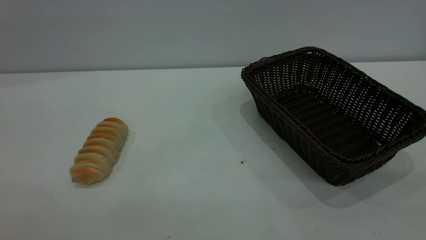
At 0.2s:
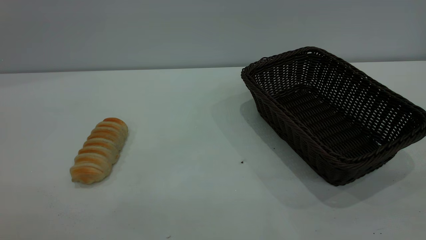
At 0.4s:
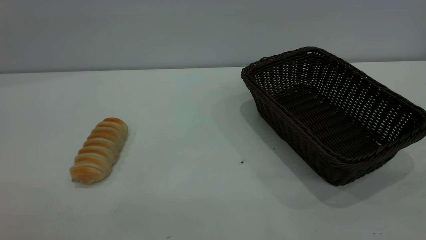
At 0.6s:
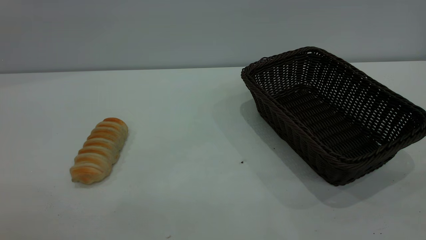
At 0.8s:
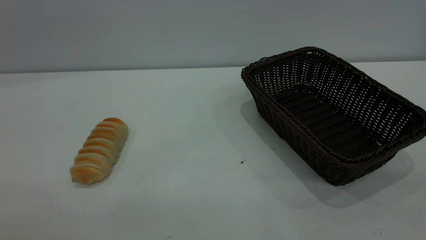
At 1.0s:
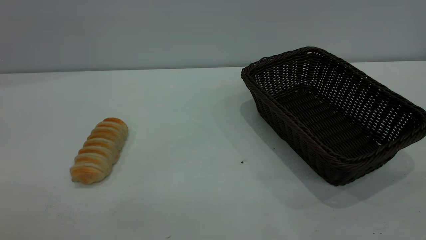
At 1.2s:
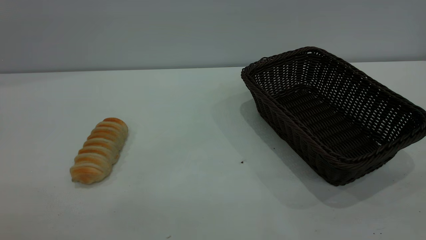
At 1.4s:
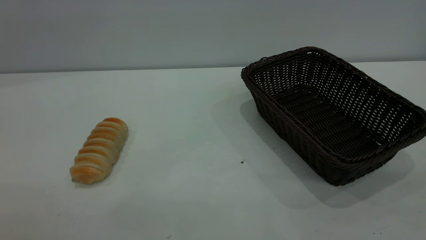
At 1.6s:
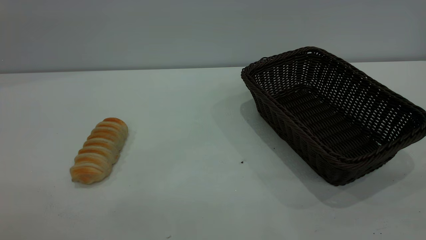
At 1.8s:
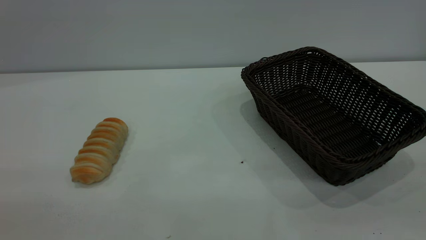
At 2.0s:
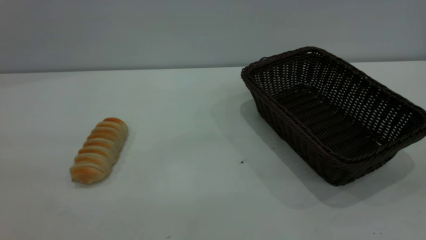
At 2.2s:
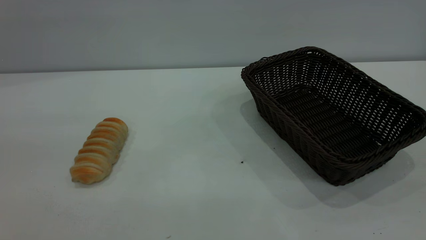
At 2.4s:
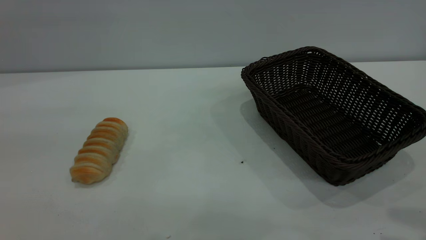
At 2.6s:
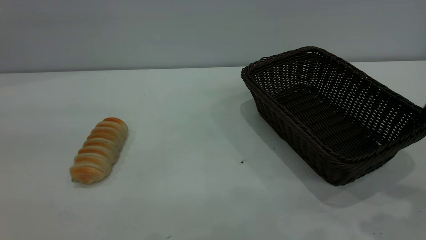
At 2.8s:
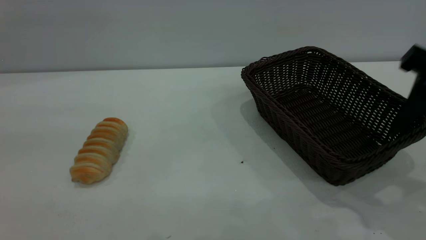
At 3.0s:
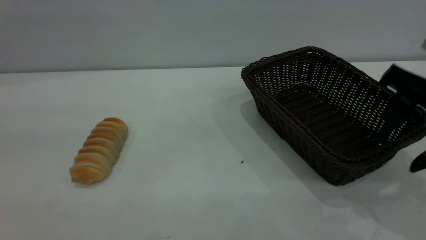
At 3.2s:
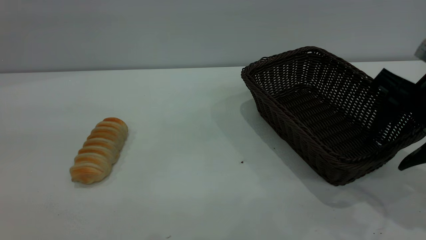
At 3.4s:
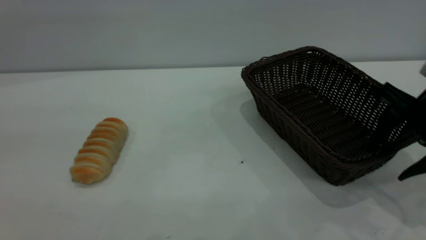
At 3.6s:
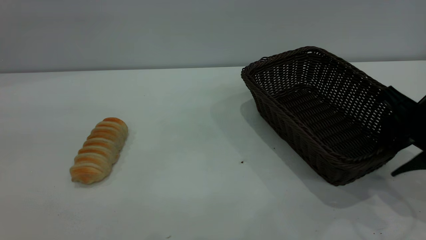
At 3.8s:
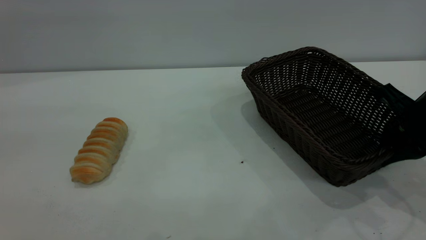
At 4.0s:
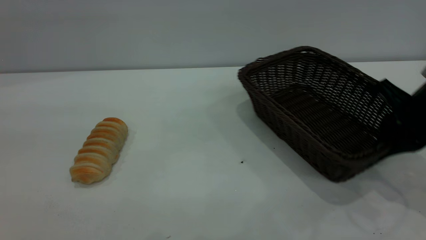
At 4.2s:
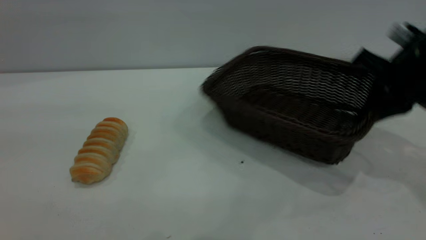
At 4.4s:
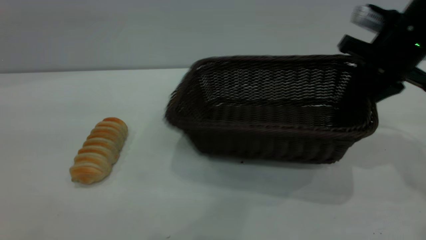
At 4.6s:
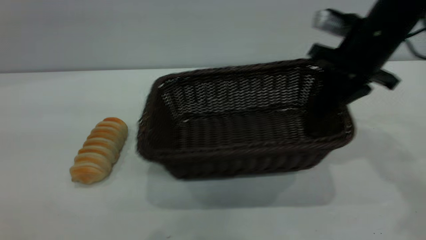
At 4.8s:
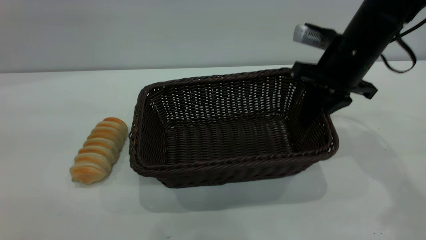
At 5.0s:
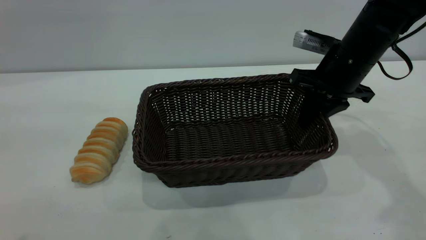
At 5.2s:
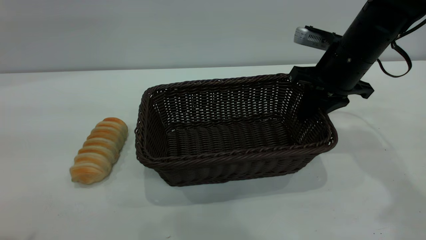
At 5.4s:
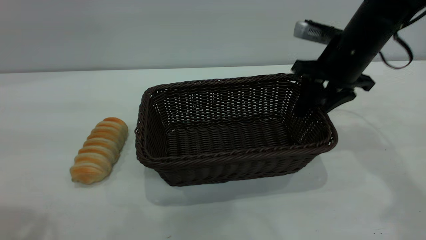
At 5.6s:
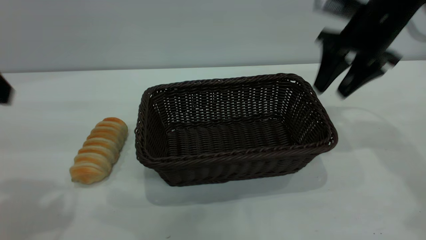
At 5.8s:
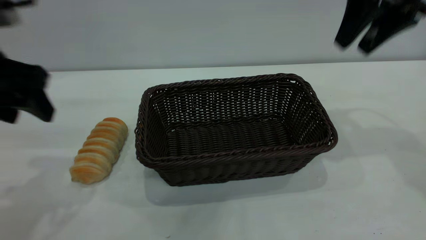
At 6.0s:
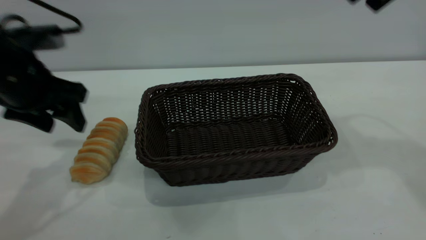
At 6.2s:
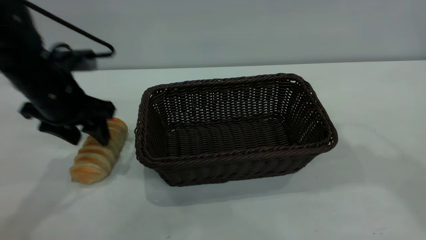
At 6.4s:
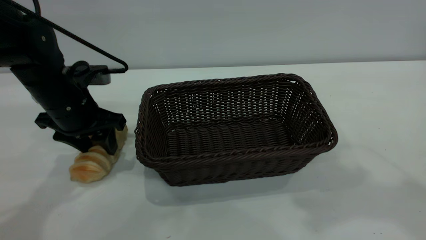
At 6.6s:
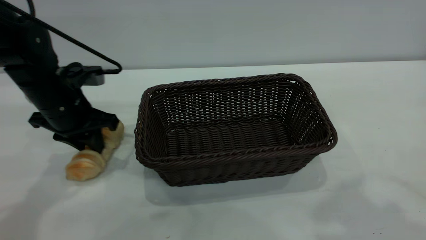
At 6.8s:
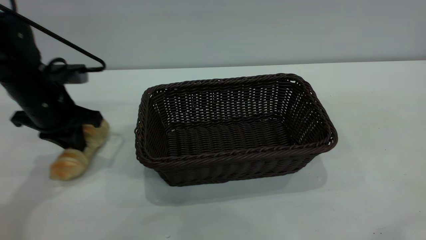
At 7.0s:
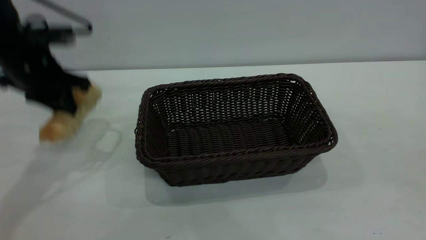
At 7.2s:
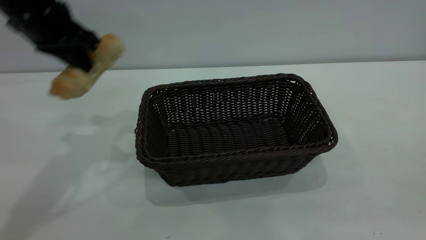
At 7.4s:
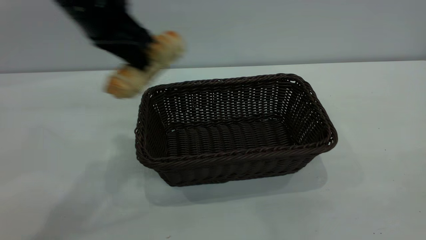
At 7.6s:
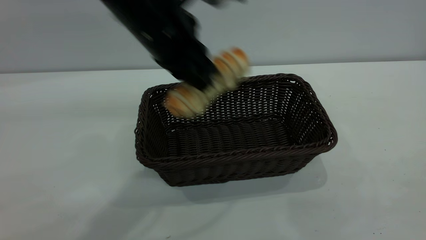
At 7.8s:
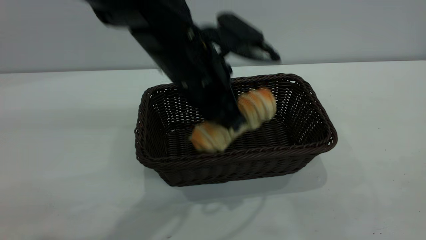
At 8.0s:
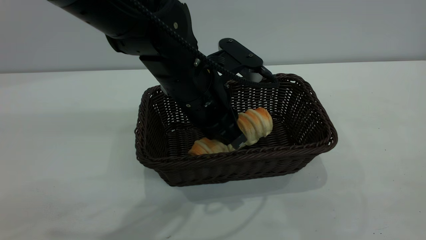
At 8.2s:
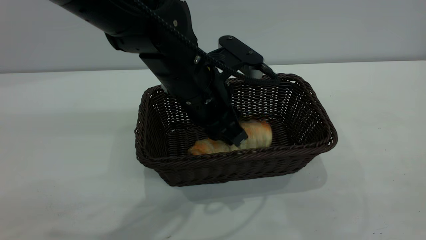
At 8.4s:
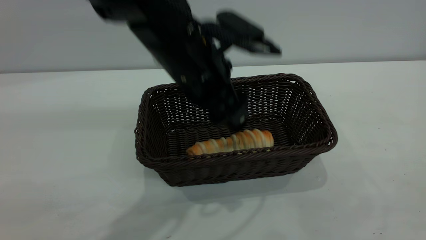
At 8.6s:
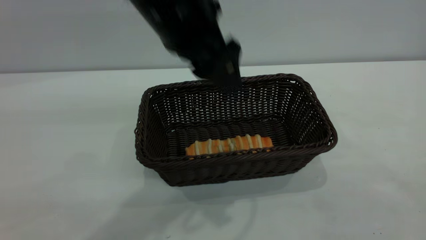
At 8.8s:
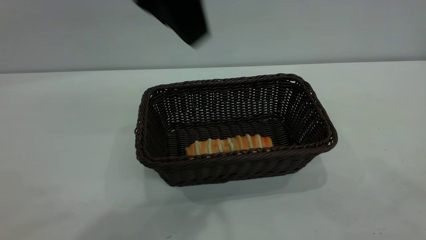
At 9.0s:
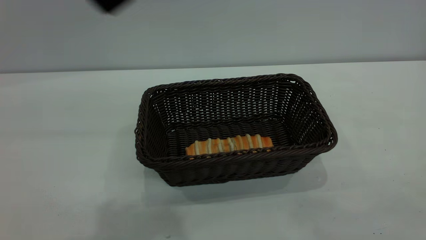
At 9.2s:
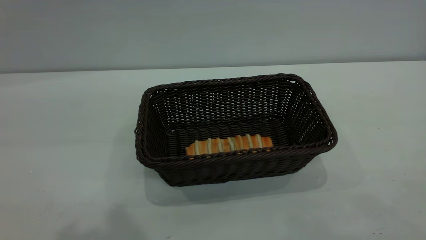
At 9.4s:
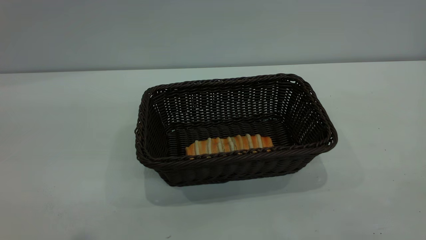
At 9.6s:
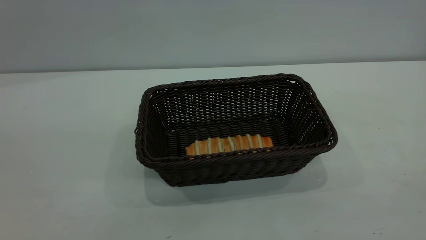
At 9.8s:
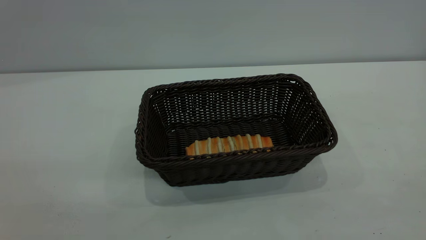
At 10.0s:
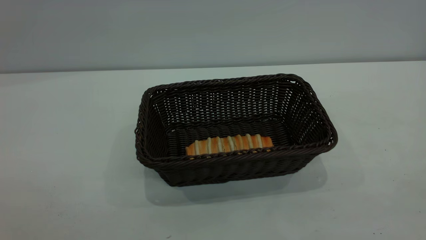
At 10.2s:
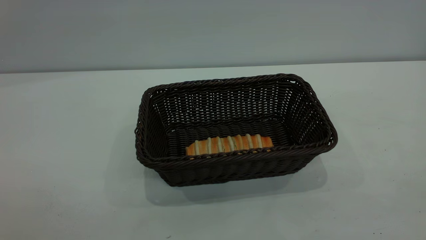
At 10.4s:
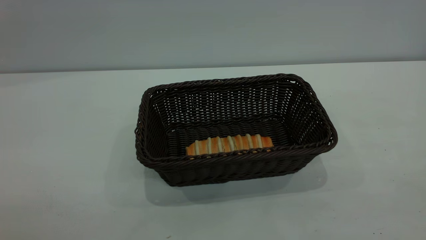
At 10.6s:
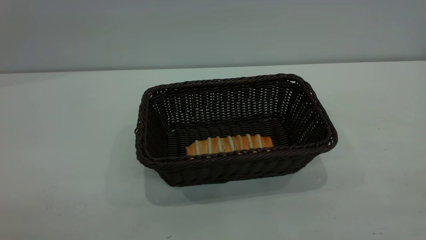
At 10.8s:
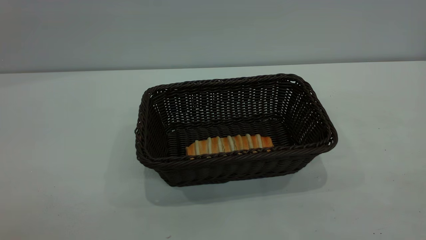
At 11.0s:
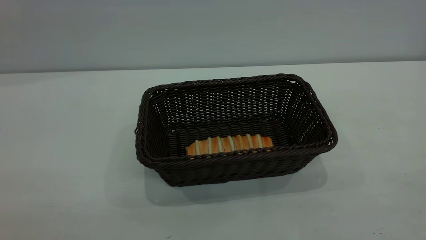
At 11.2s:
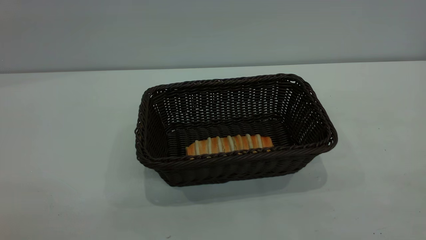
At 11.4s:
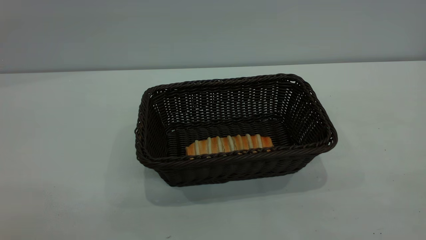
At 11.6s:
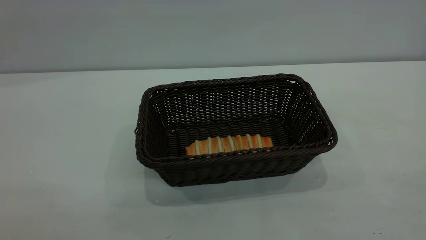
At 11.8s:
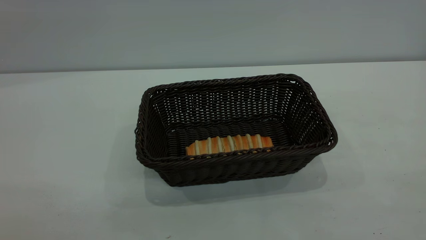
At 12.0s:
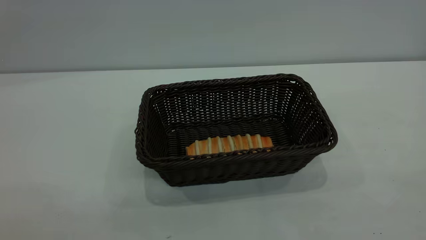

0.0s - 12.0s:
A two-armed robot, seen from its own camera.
Task of the whole recording: One hand grasps the black basket and places it in the middle of the table, while the other hand picks up the long bread and puts it into the black basket.
Step, 0.0s - 5.6s: Move the basket to the center of view.
Step, 7.4s - 8.6s: place the bread into the basket.
0.0s - 1.6s: Neither gripper changes place.
1.6s - 3.0s: The right gripper shifts some 30 cm forward and downward.
3.0s - 4.4s: The right gripper is displaced forward by some 10 cm, and closes.
4.4s - 6.0s: The right gripper heads upward, covering roughly 15 cm, and opens up. The left gripper travels forward and downward by some 30 cm.
6.0s - 7.6s: The left gripper heads to the right, covering approximately 20 cm, and closes. The right gripper is displaced backward by roughly 35 cm.
7.6s - 9.0s: The left gripper travels upward and backward by about 25 cm, and opens.
